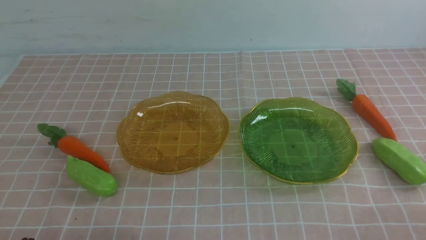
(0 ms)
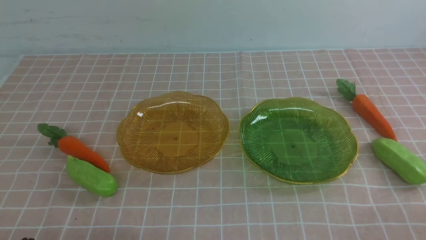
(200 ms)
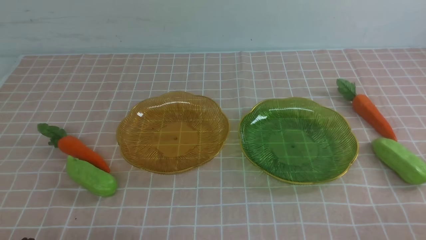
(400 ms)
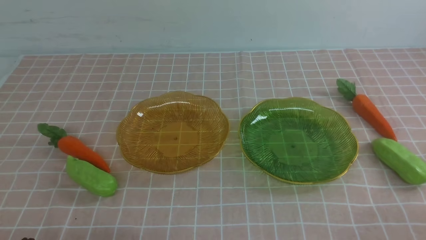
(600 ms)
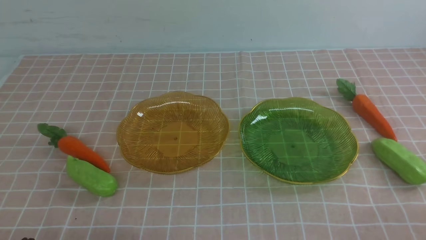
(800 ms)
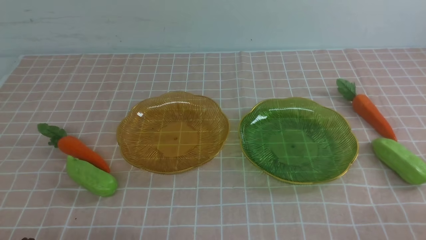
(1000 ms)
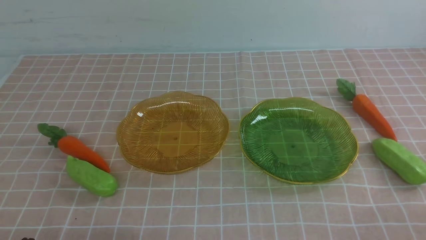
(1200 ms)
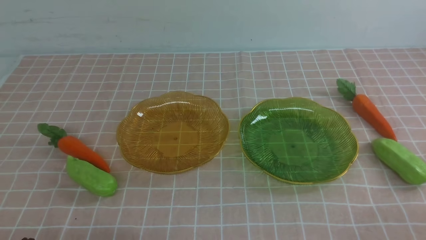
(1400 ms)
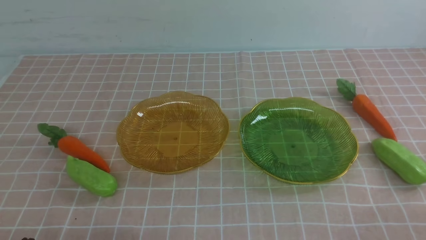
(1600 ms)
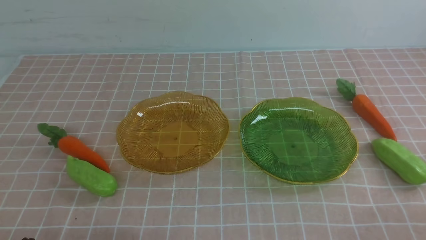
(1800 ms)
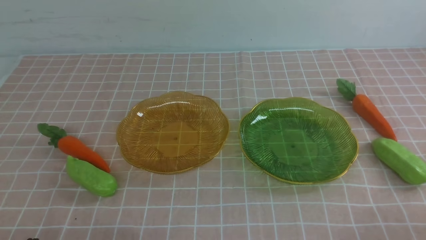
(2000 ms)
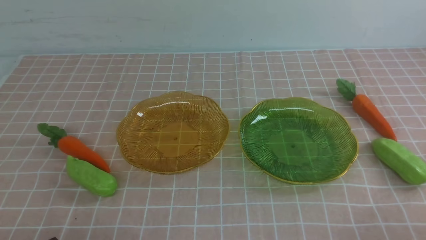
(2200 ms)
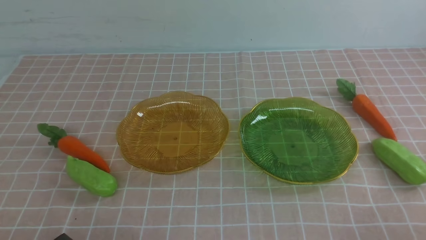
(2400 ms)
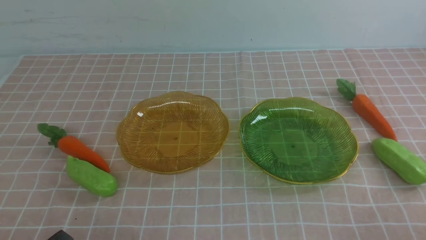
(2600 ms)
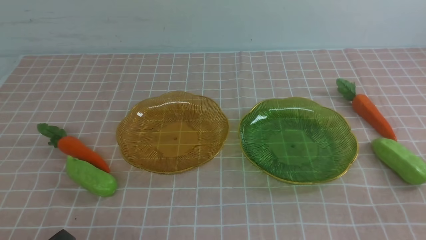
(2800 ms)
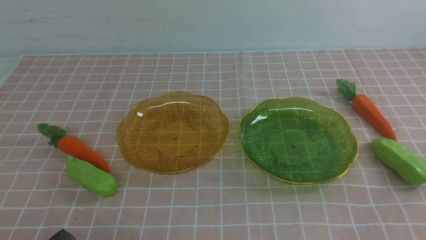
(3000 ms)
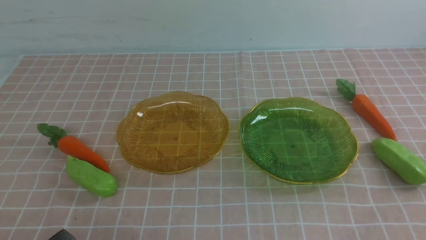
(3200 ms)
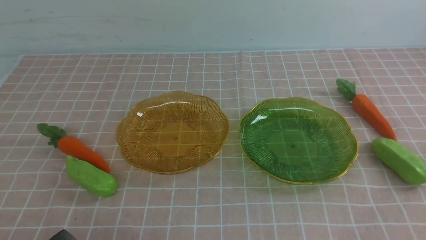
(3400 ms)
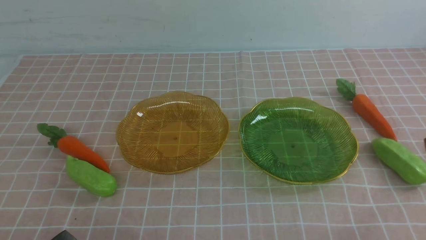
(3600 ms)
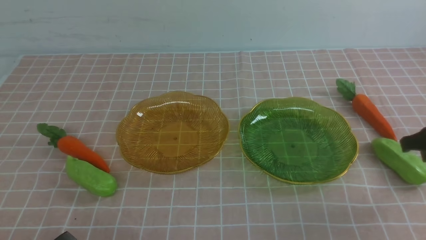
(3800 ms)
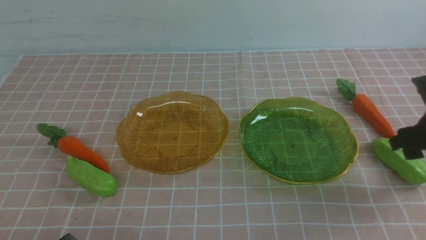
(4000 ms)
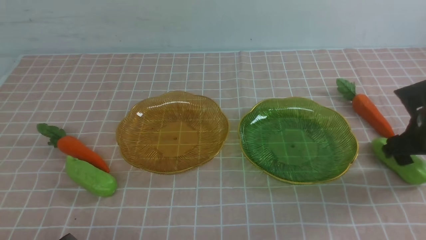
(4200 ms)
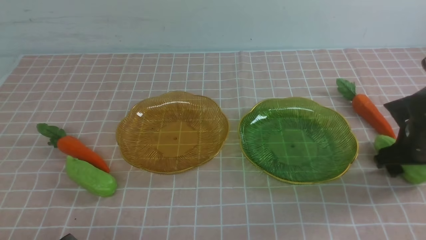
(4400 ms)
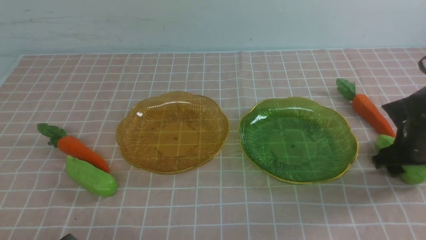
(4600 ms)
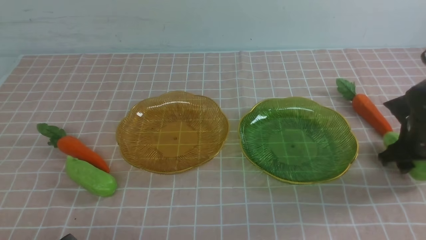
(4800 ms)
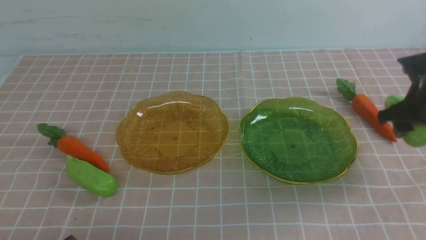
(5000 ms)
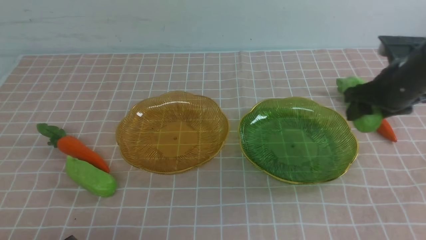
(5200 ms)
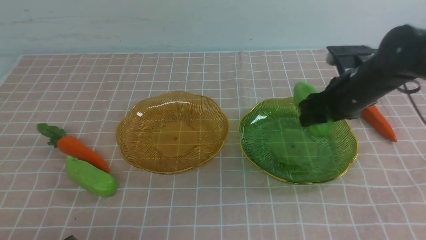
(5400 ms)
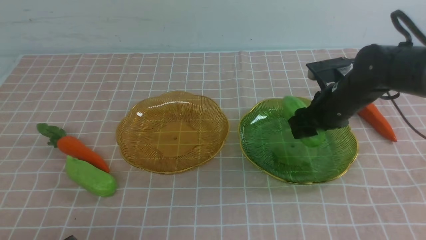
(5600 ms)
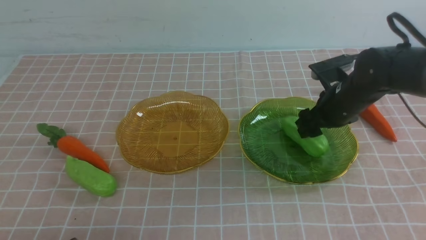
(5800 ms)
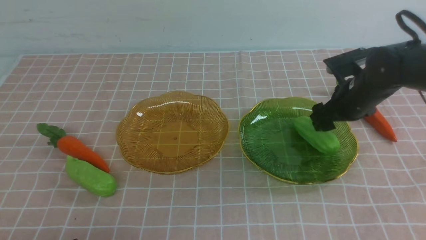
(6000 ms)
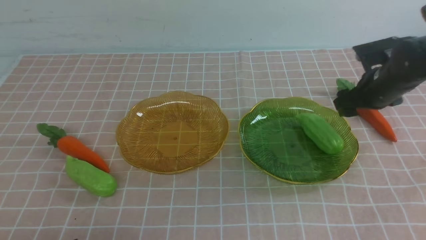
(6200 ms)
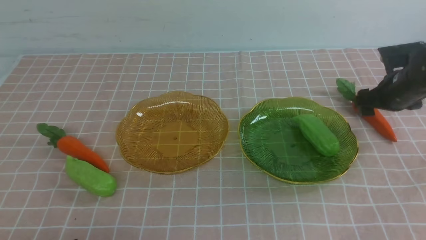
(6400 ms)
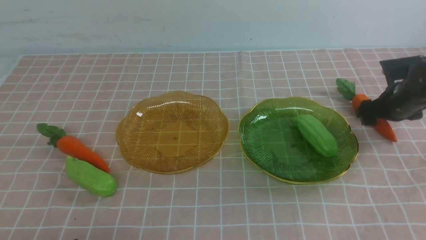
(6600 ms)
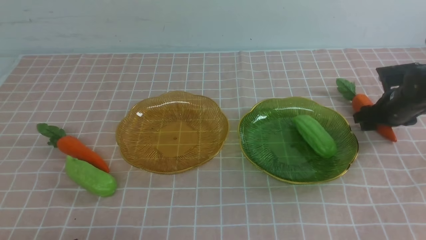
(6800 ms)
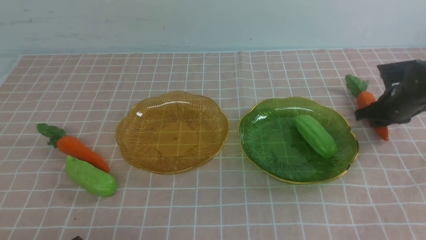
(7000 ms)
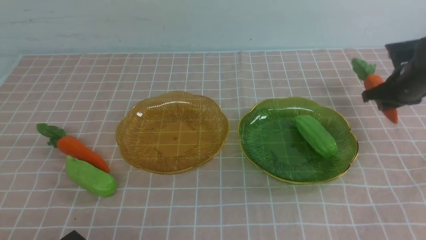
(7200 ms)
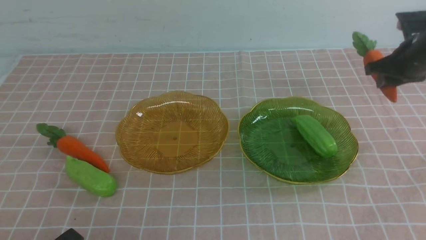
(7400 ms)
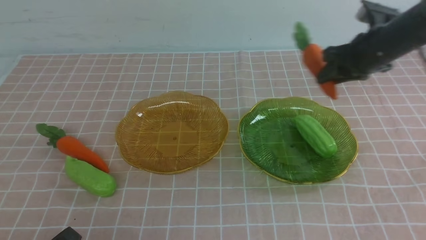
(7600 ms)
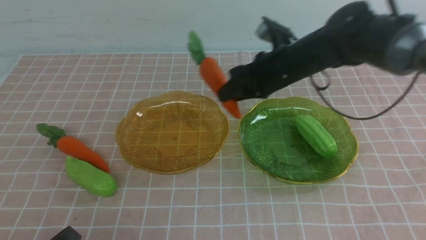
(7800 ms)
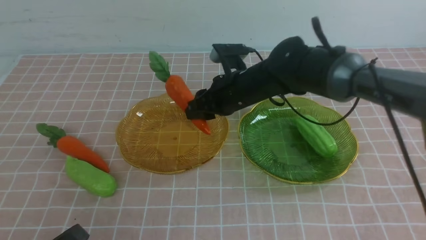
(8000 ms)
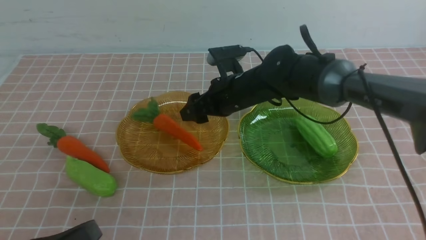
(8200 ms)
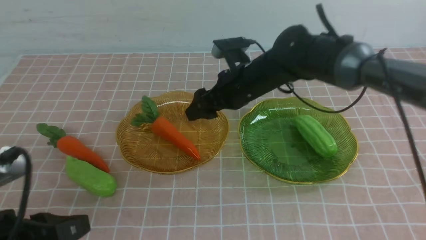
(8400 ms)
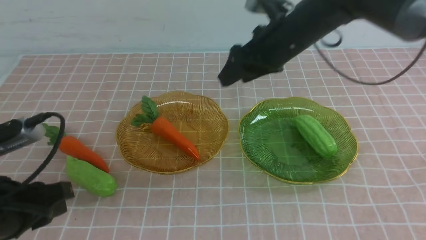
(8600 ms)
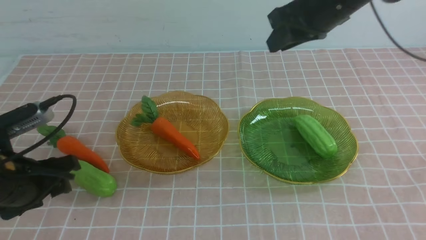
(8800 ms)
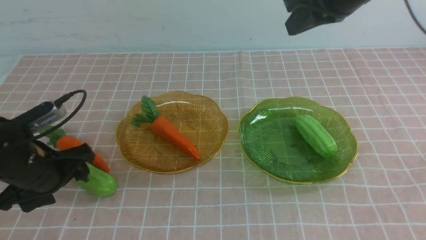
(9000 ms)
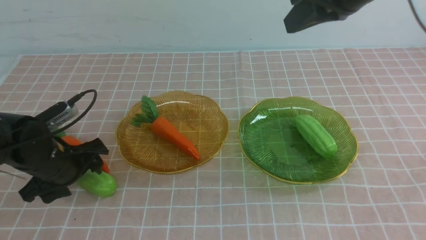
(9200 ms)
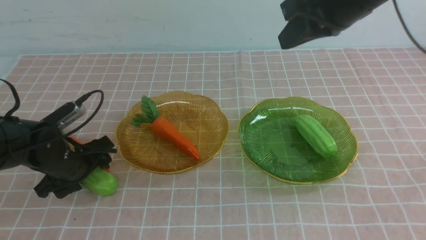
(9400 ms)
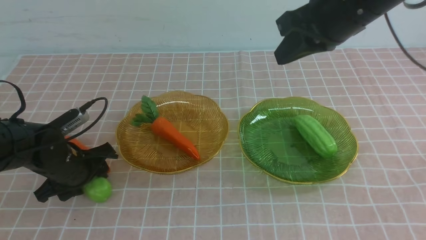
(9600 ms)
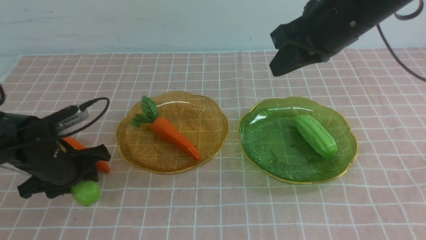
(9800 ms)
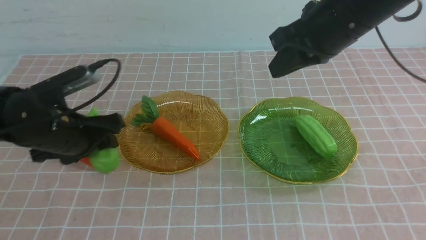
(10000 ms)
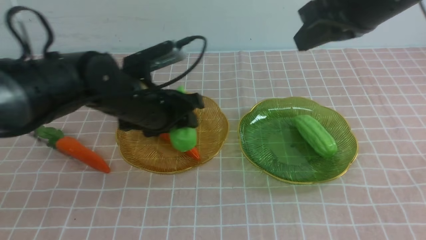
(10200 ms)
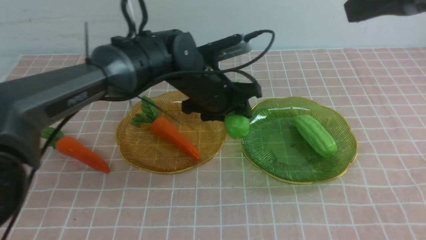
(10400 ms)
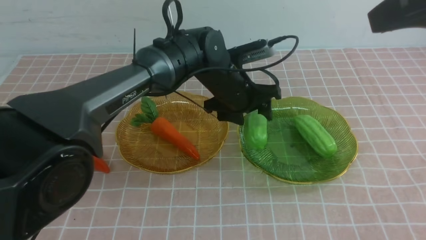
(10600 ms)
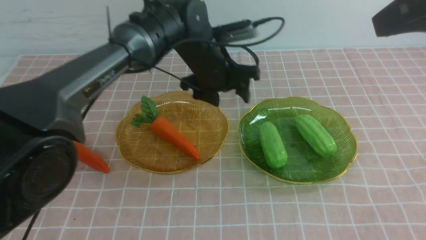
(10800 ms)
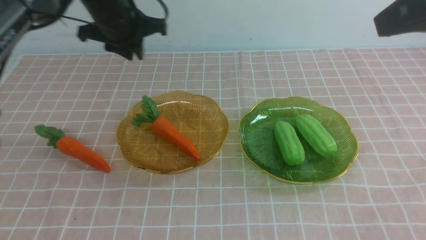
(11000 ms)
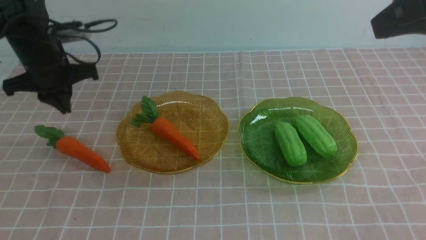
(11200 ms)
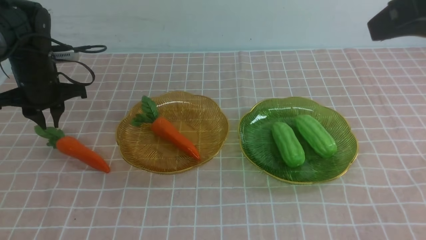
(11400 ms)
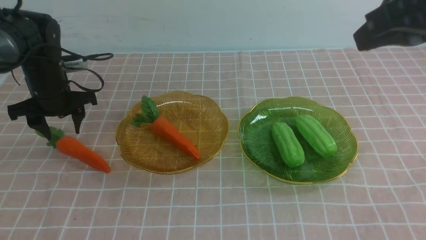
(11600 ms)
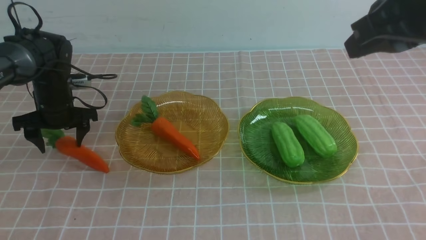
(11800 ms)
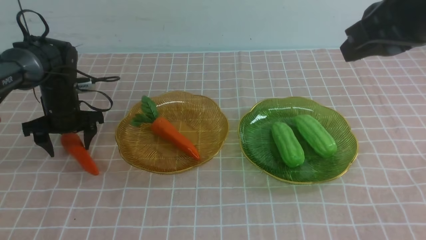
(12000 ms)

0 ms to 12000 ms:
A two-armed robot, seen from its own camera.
Step, 0 ms to 5800 ms: use the right arm to grab a chayote and put it into the right plate.
Step, 6200 ms to 8200 ms: use the right arm to grab a carrot and put it into the left plate.
Step, 8600 ms to 10600 ms: use the left arm to grab a chayote and put it into the right plate.
0 ms to 1600 ms: Neither gripper changes place.
3000 ms to 4400 ms: The right gripper is displaced forward and downward by roughly 30 cm, and opens up.
4400 ms to 6000 ms: The right gripper moves forward, about 5 cm.
6000 ms to 7600 ms: The right gripper moves to the left, about 25 cm, and closes and opens again.
7600 ms to 9000 ms: The right gripper is displaced upward, to the right and backward by about 20 cm, and closes, while the left gripper is displaced forward by about 25 cm, and opens.
9000 ms to 10400 ms: The right gripper goes about 15 cm backward, upward and to the right; the left gripper is displaced forward and upward by approximately 15 cm, travels to the right and back again, approximately 25 cm each way, and closes up.
10400 ms to 12000 ms: The left gripper travels to the right and downward by approximately 10 cm, and opens its fingers.

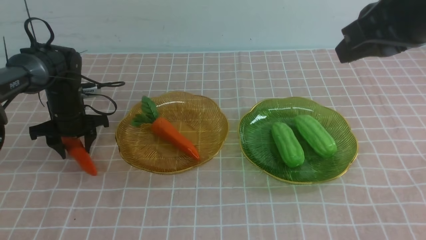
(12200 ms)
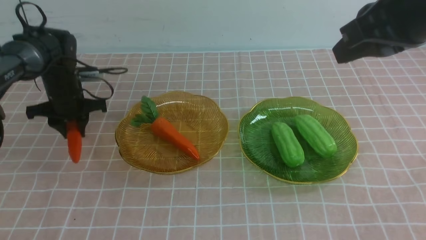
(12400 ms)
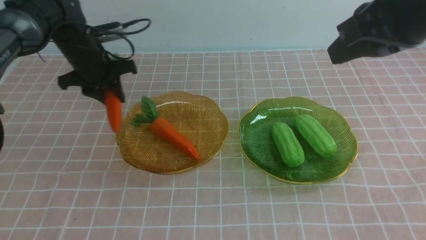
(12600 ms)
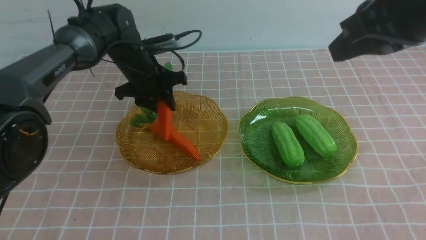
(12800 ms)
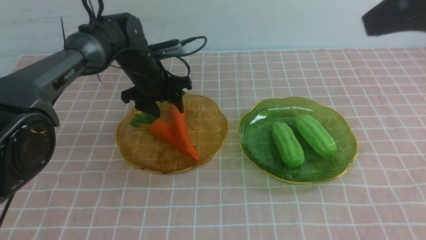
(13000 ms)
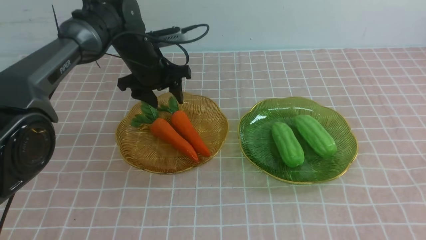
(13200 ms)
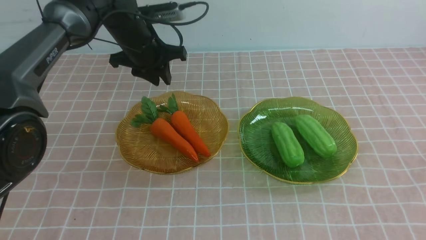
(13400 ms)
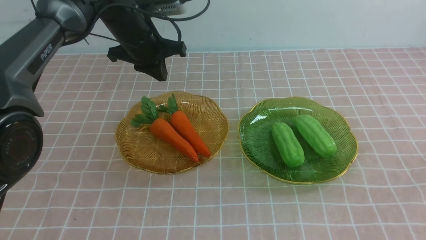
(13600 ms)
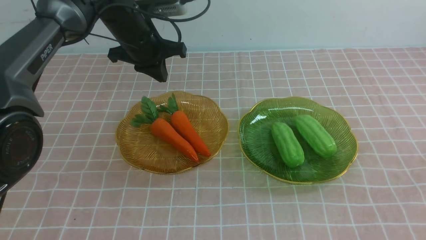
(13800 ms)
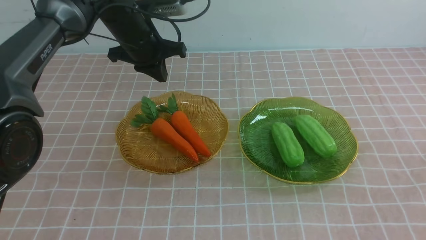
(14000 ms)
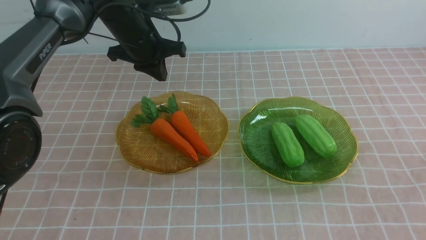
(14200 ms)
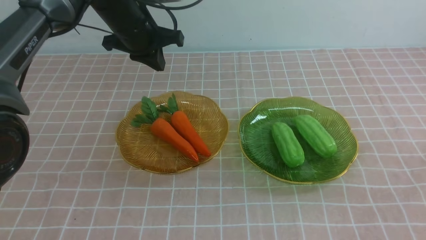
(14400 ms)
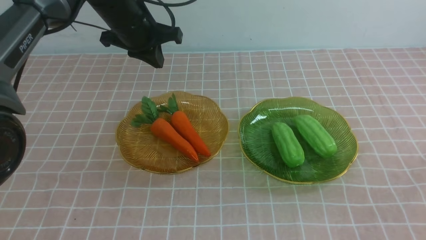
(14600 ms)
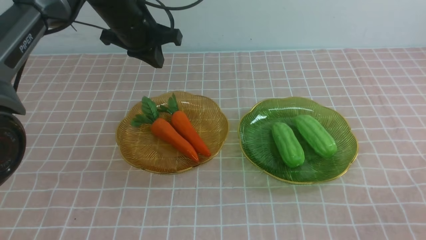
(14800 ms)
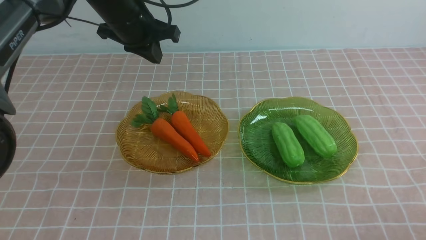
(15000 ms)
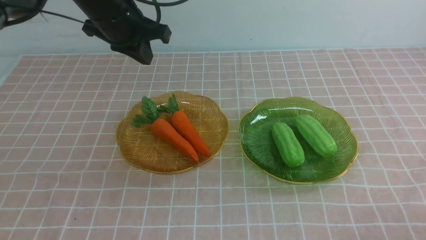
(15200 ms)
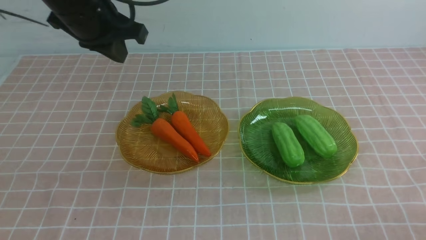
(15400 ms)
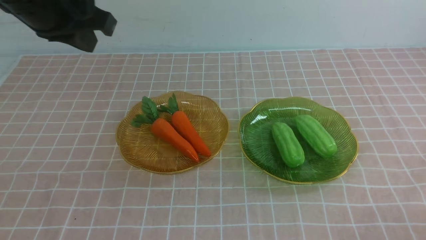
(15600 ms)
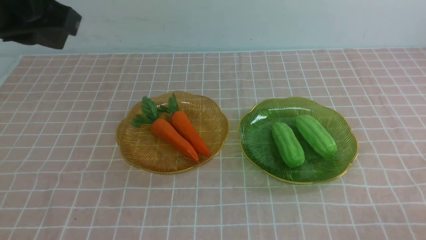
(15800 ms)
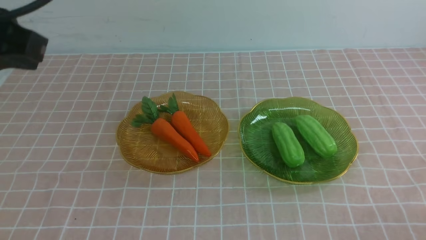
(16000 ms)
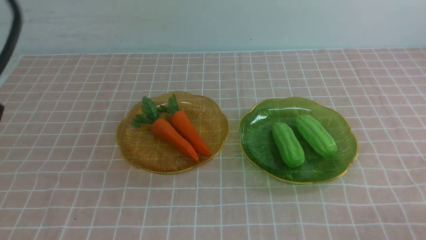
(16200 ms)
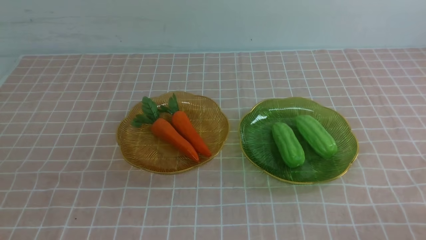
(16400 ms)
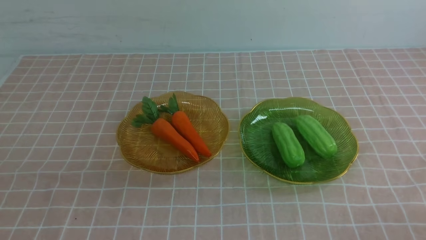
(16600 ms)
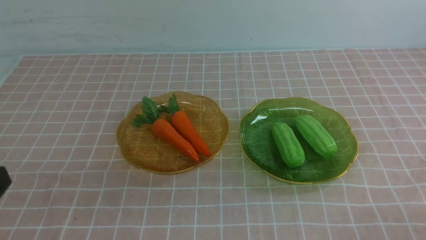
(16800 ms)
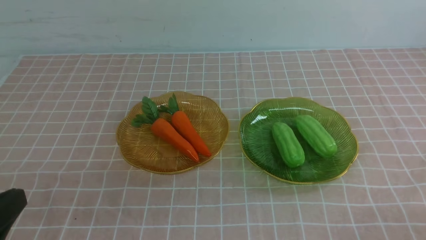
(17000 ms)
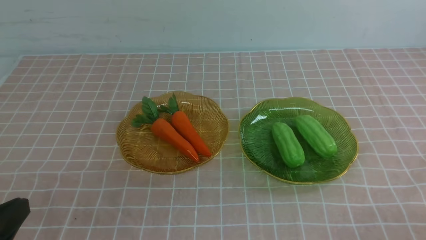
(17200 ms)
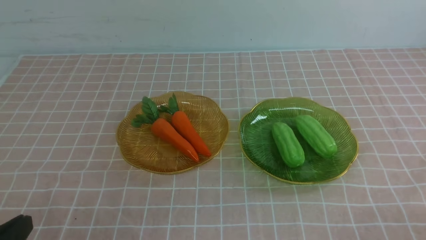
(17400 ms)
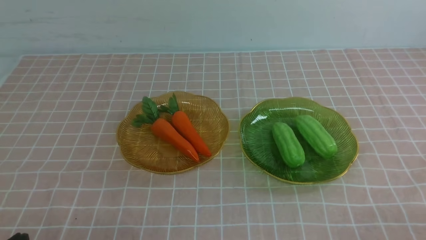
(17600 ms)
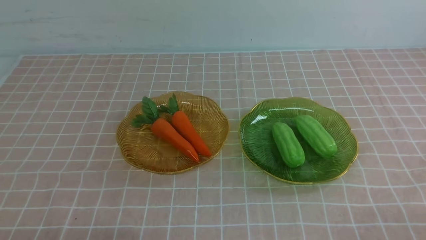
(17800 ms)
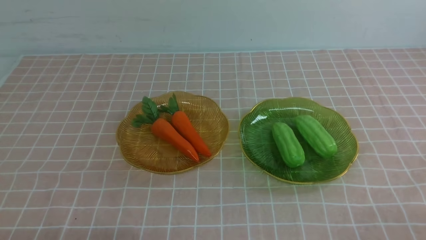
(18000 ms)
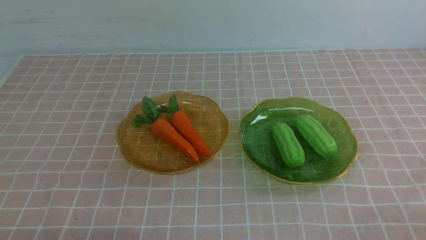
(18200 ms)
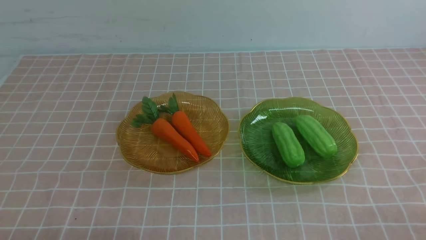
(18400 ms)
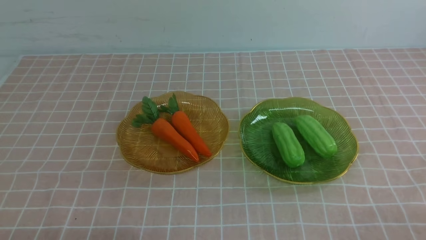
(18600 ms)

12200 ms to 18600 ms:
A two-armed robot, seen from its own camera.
12200 ms to 13800 ms: The left gripper moves upward, some 10 cm, and closes its fingers. Meanwhile the right gripper goes approximately 25 cm downward, backward and to the right.
13800 ms to 15400 ms: The left gripper heads backward, covering approximately 30 cm, while the right gripper travels downward by some 10 cm.
15400 ms to 17000 ms: The left gripper goes roughly 25 cm downward.
17000 ms to 18600 ms: Neither gripper changes place.
